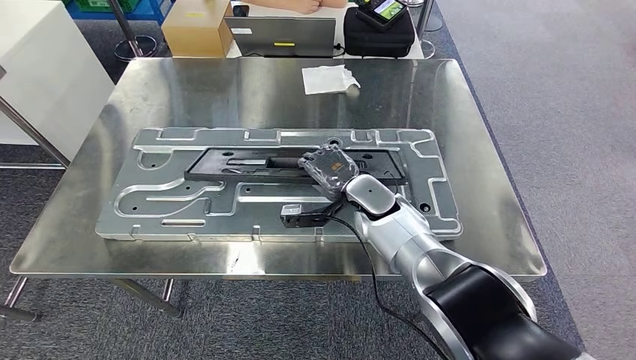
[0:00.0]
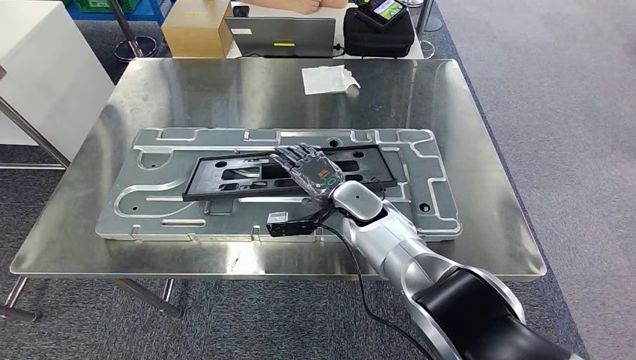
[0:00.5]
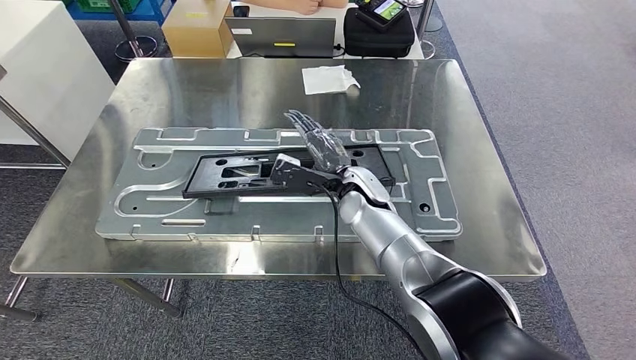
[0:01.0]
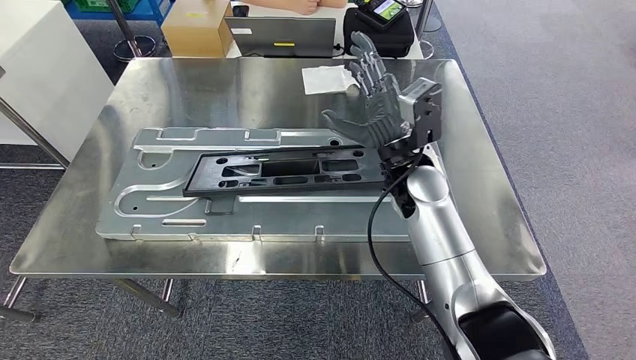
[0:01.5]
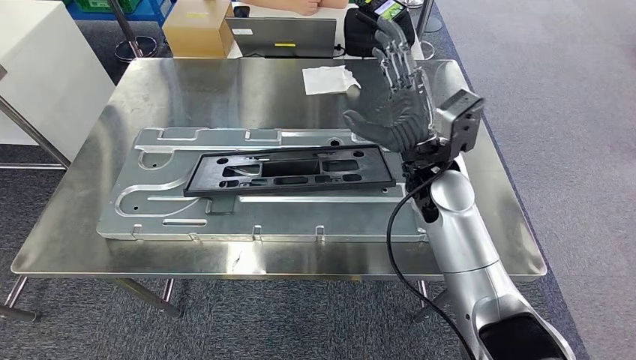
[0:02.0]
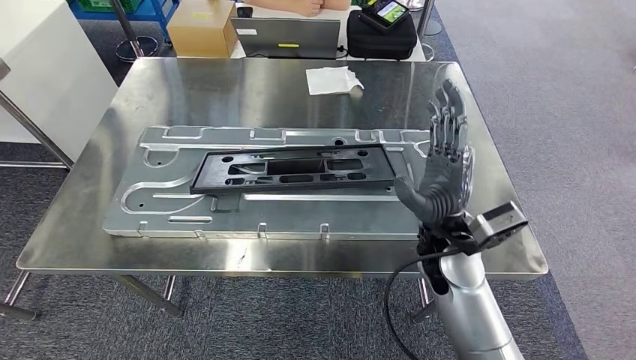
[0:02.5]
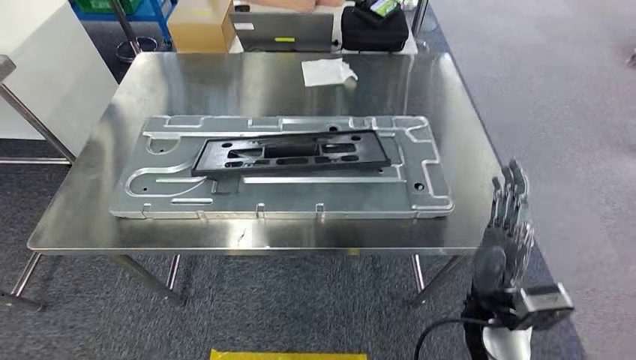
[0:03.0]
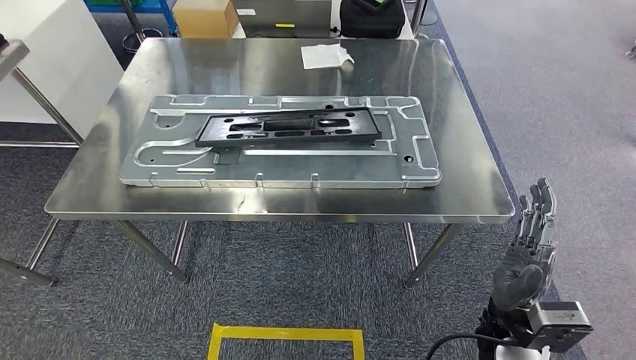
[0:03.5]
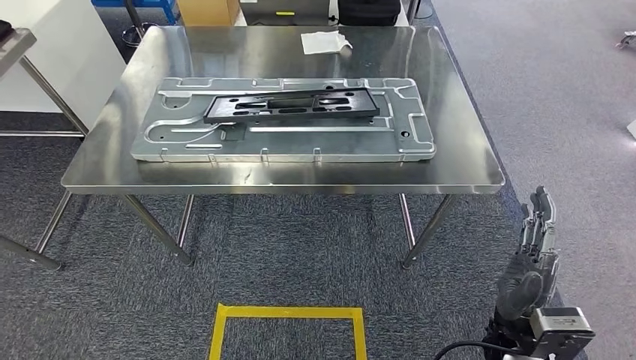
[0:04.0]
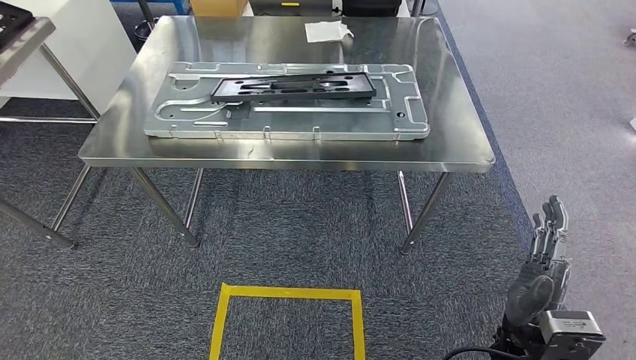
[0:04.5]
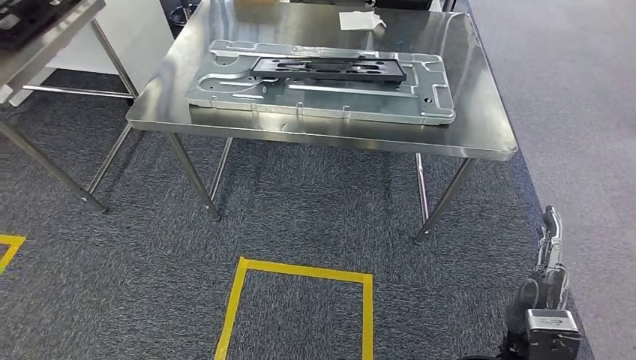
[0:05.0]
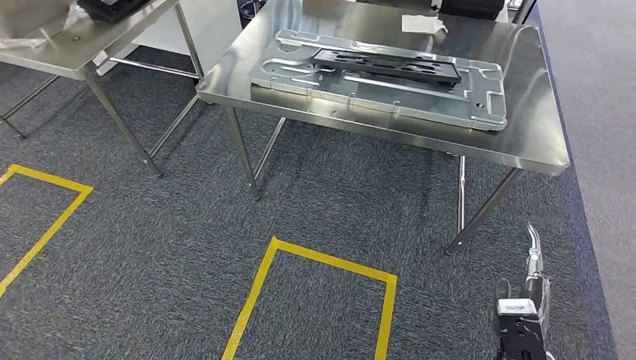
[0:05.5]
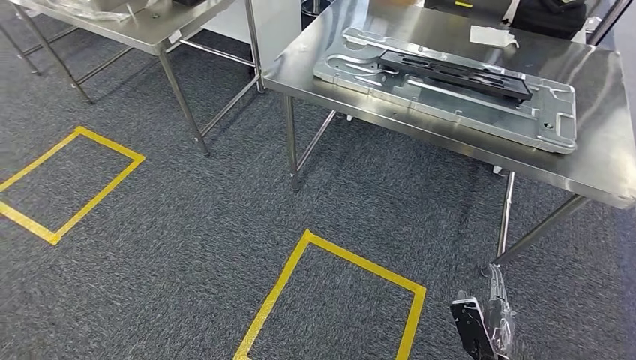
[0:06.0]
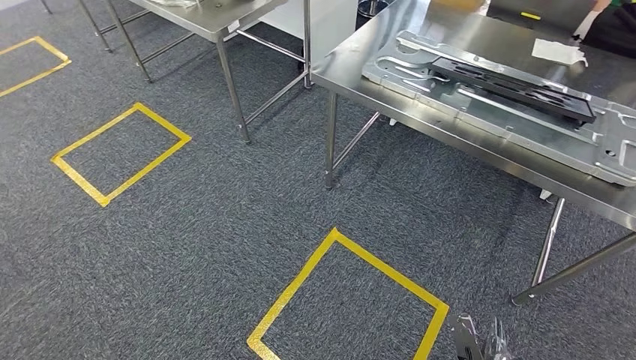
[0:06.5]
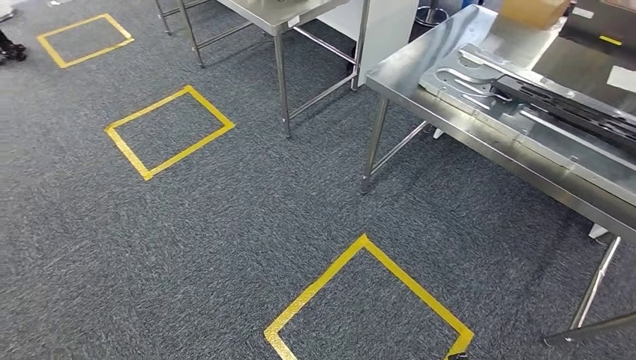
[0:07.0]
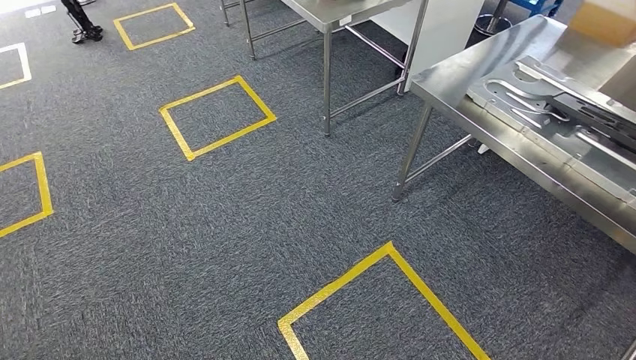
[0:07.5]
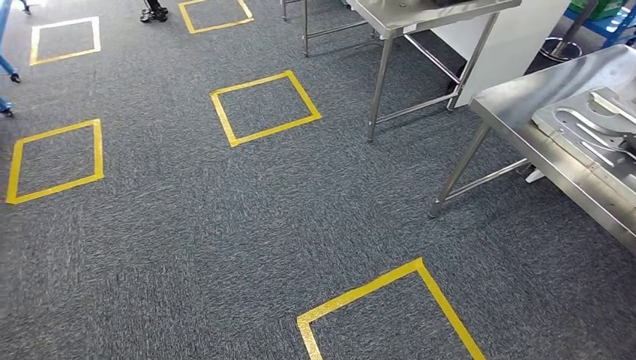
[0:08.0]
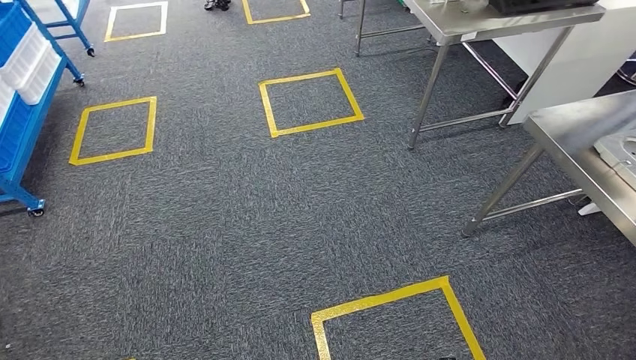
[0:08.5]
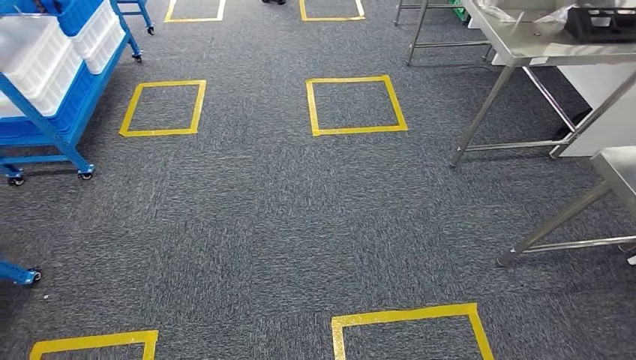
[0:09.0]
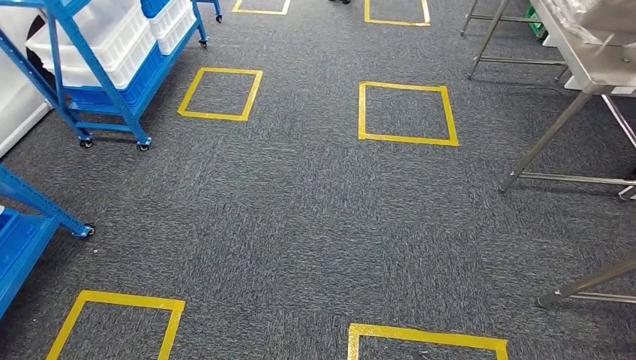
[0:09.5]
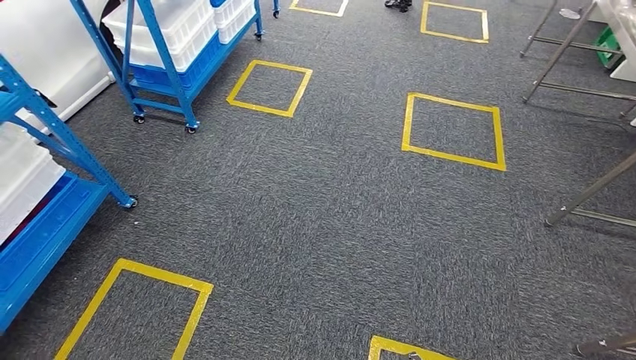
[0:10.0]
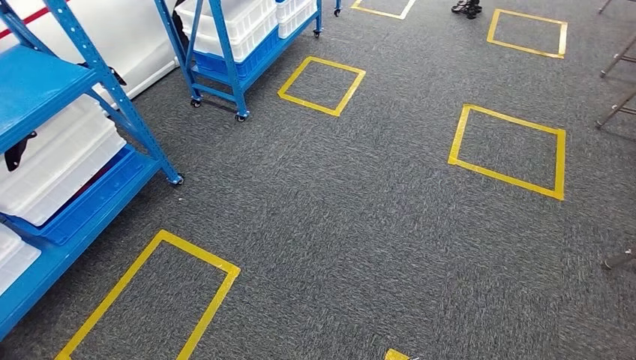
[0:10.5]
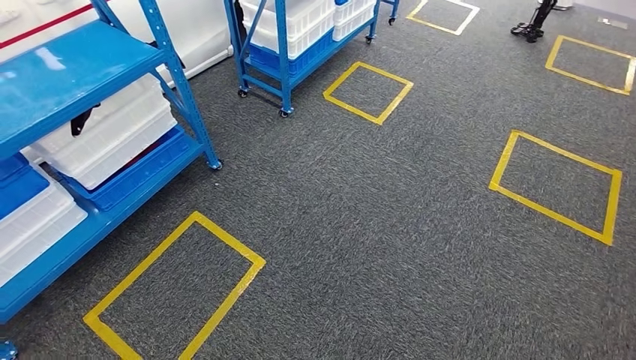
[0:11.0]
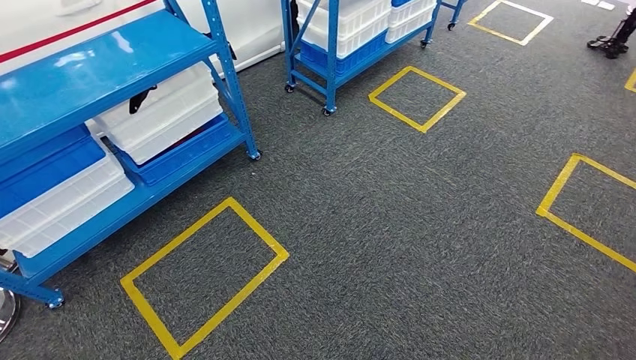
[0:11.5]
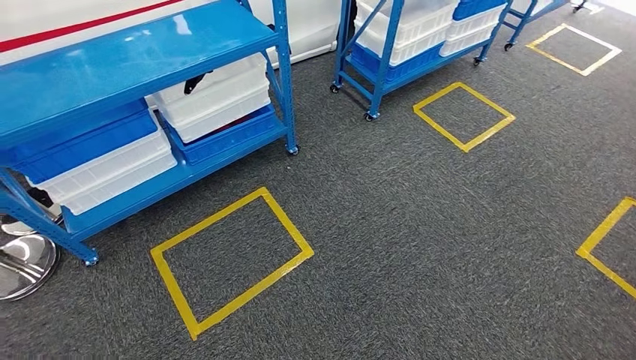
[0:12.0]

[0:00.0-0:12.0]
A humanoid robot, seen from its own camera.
Step, 0:00.0 to 0:04.0: Insert the large parts into the corresponding slots on the workbench.
0:00.0 to 0:02.0: The left hand goes some 5 cm to the right; the right hand shifts about 15 cm upward and to the right.

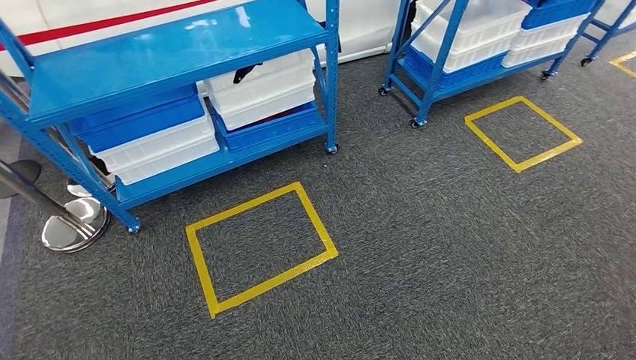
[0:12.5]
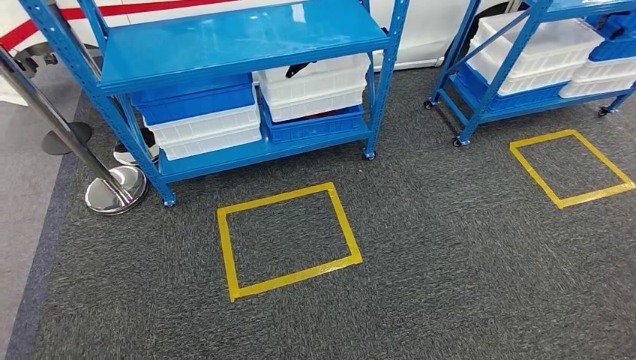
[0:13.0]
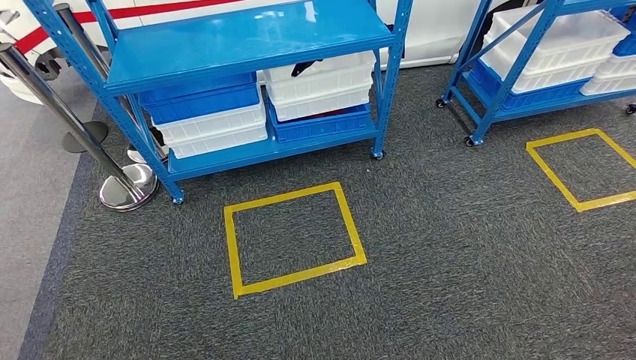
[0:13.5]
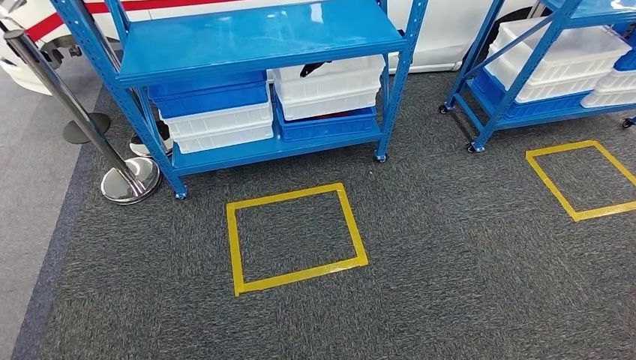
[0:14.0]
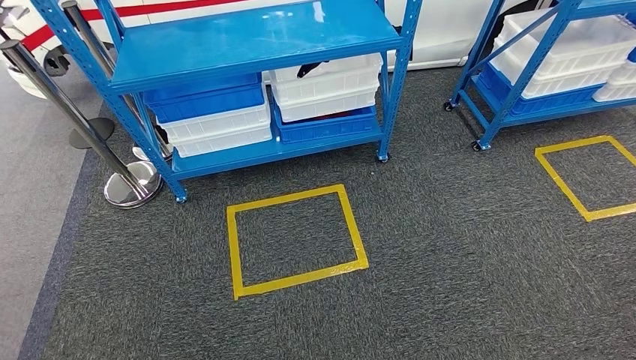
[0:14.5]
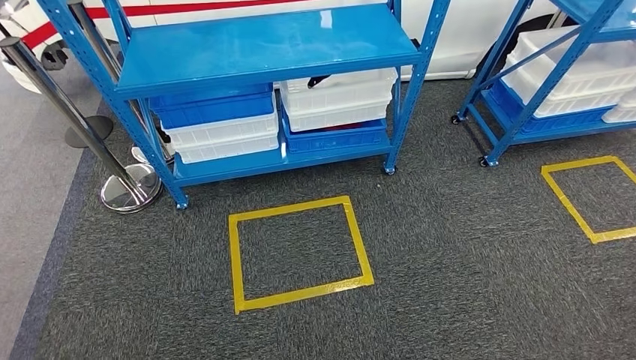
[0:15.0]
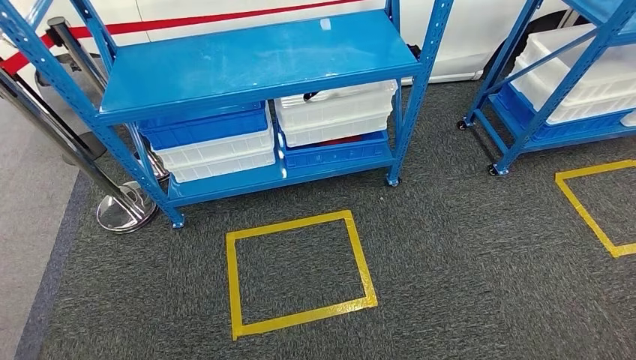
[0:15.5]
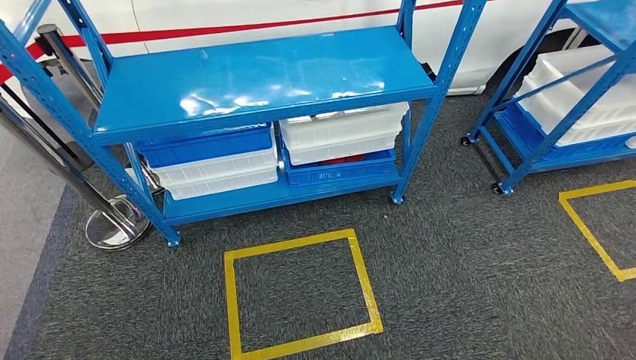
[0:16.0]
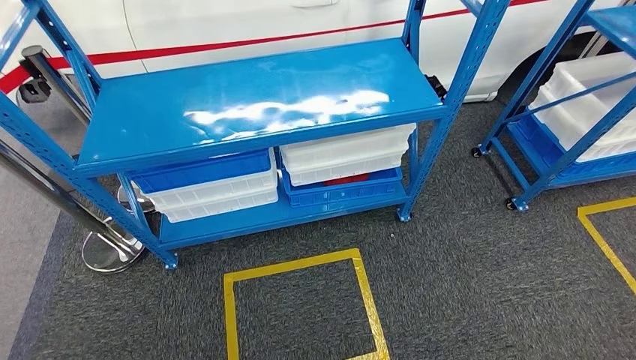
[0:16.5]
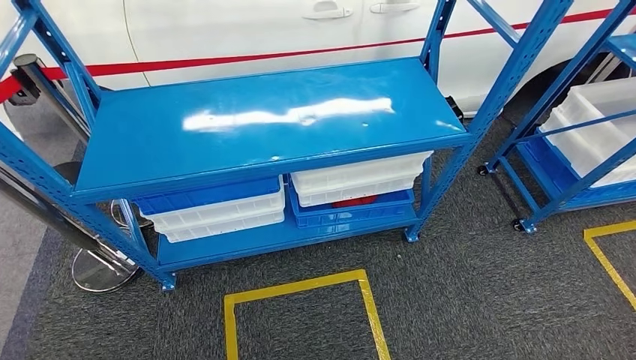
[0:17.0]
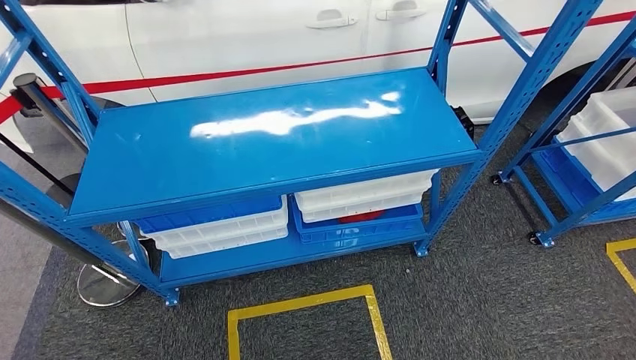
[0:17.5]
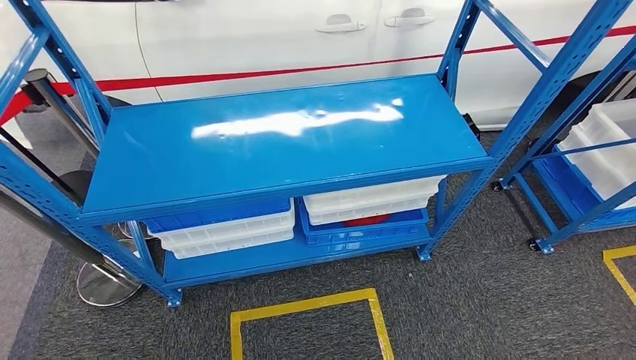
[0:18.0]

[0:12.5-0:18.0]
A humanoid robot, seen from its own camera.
Step, 0:12.5 to 0:18.0: Return to the initial position at the shelf.
